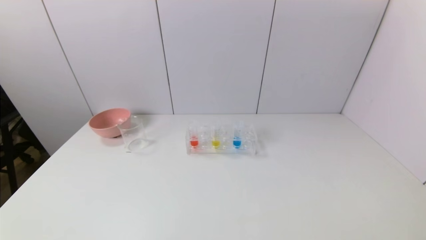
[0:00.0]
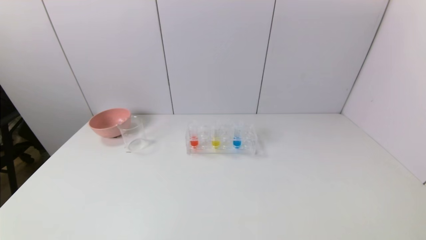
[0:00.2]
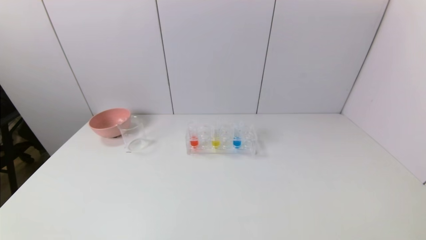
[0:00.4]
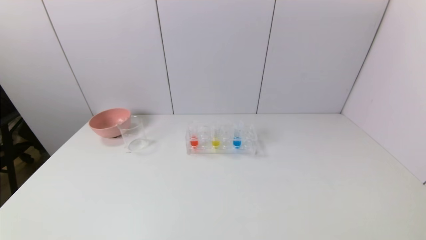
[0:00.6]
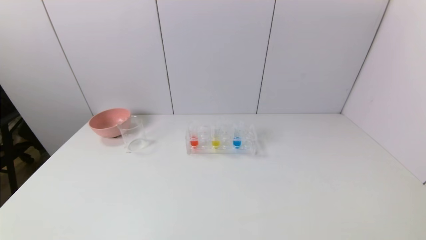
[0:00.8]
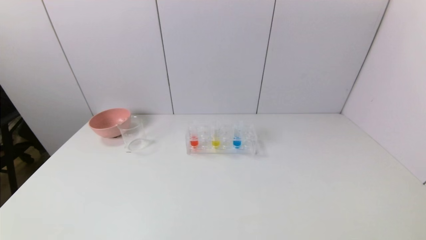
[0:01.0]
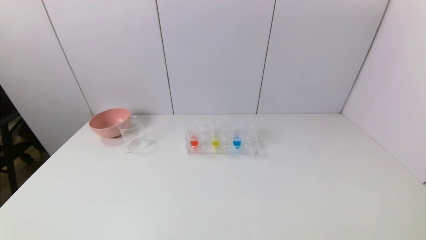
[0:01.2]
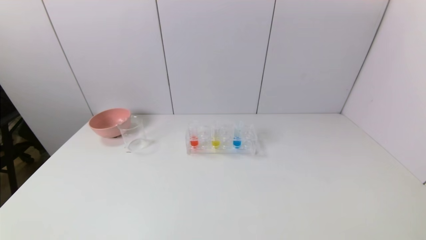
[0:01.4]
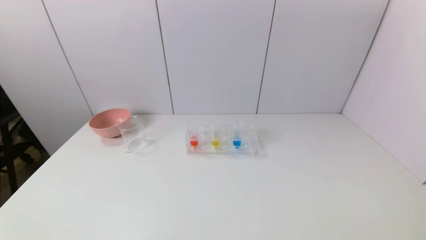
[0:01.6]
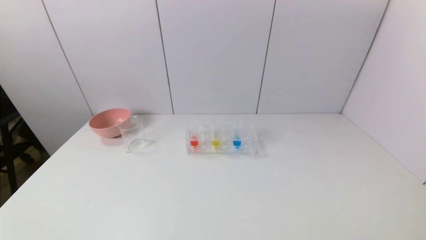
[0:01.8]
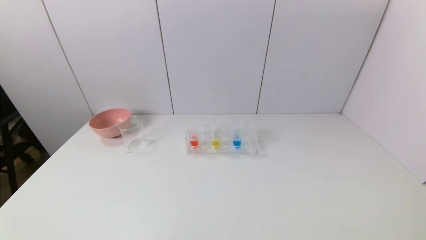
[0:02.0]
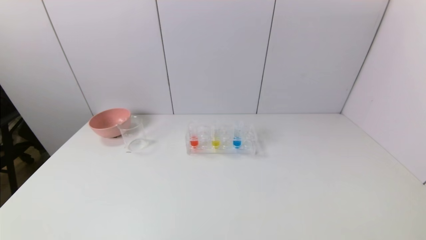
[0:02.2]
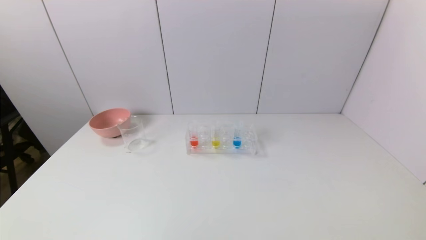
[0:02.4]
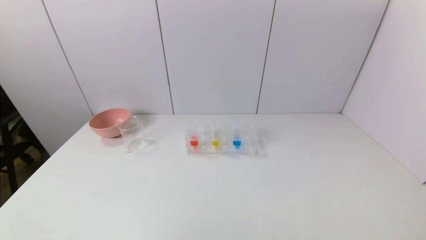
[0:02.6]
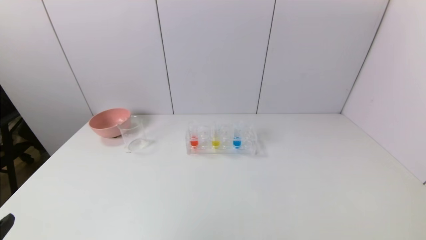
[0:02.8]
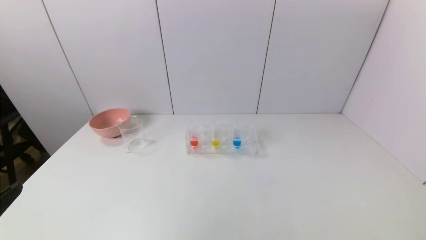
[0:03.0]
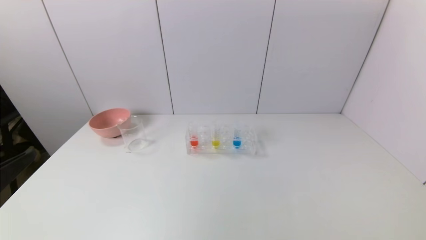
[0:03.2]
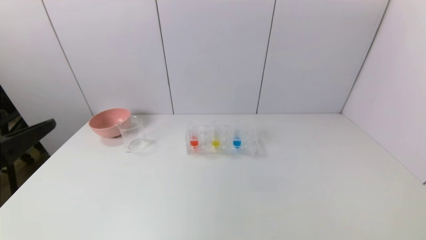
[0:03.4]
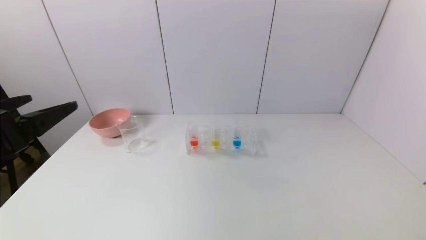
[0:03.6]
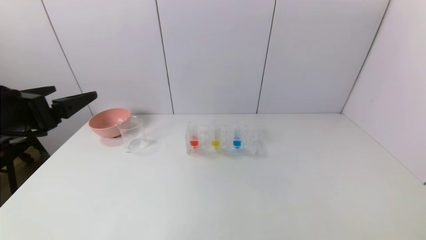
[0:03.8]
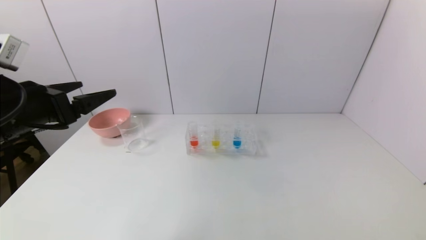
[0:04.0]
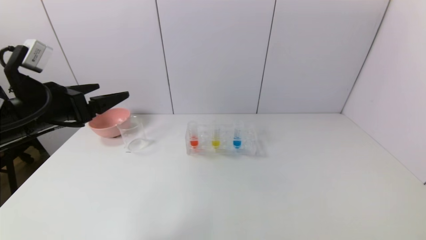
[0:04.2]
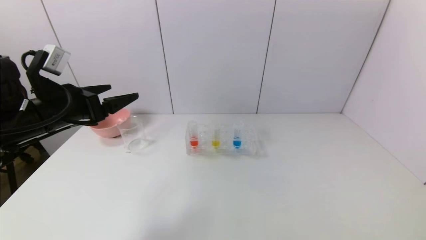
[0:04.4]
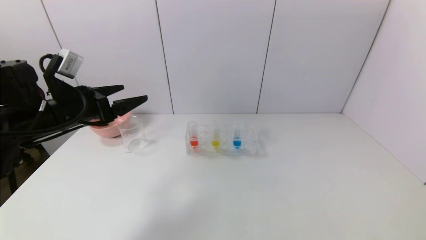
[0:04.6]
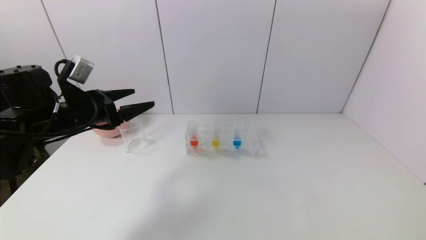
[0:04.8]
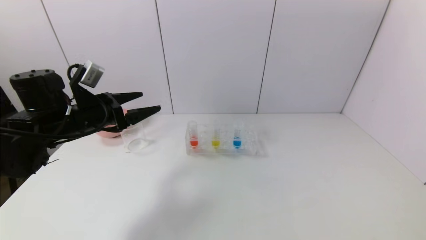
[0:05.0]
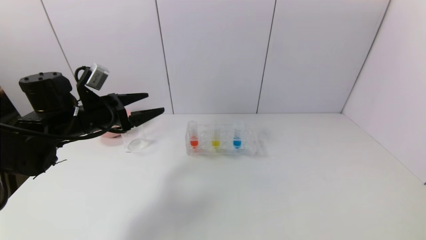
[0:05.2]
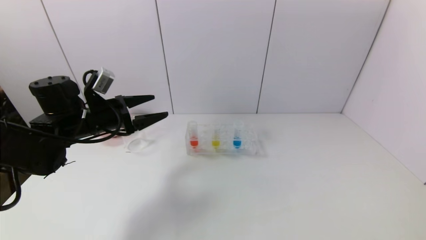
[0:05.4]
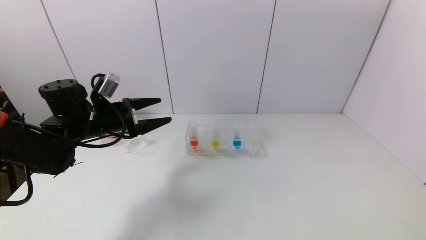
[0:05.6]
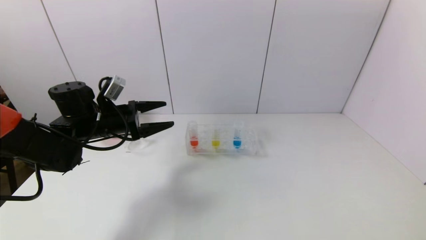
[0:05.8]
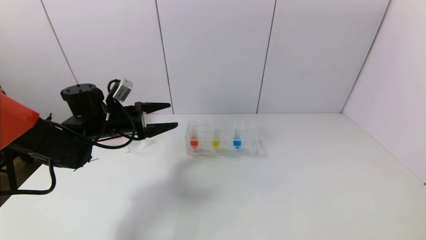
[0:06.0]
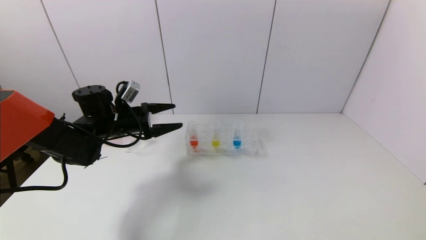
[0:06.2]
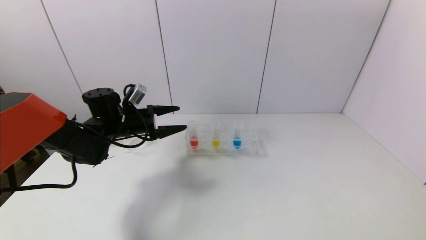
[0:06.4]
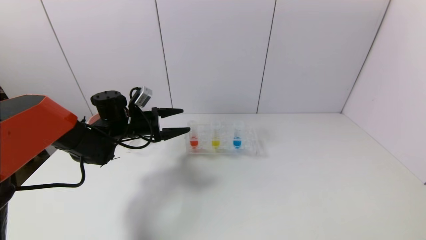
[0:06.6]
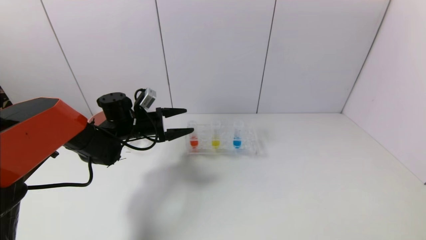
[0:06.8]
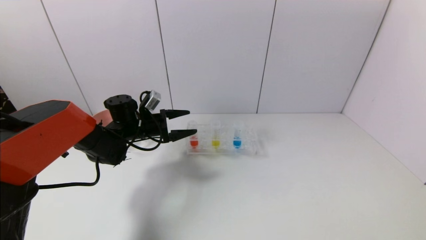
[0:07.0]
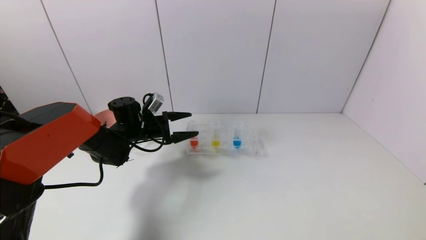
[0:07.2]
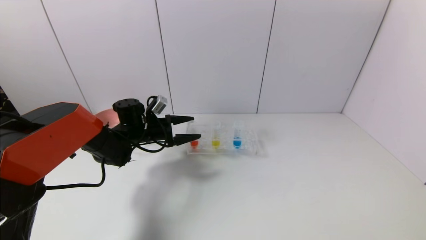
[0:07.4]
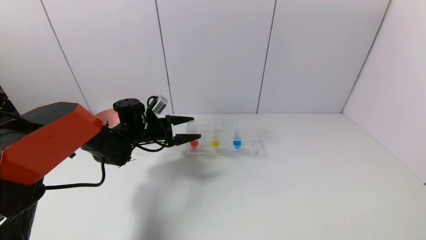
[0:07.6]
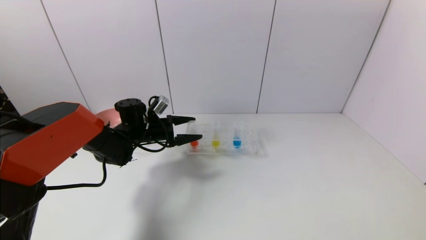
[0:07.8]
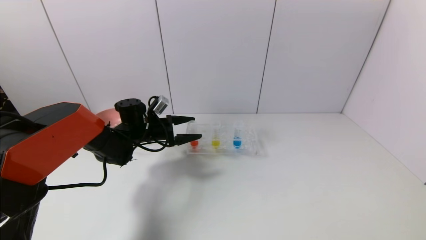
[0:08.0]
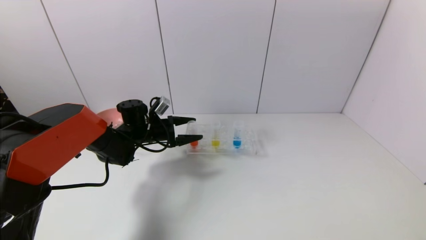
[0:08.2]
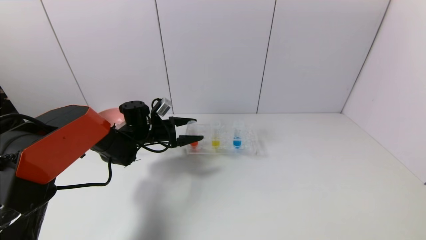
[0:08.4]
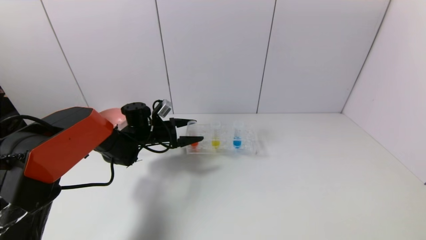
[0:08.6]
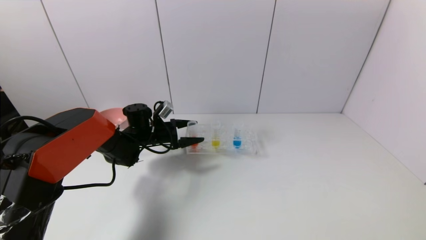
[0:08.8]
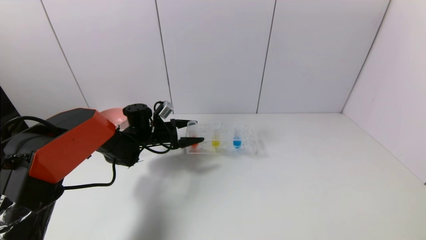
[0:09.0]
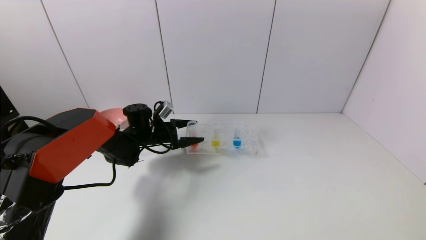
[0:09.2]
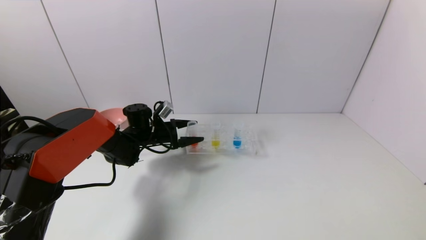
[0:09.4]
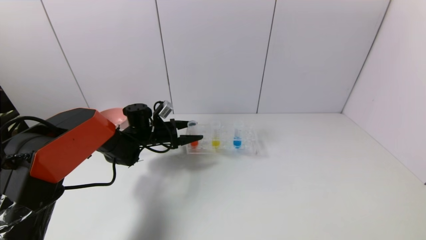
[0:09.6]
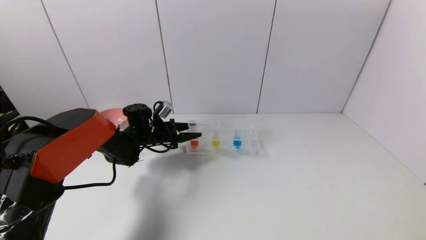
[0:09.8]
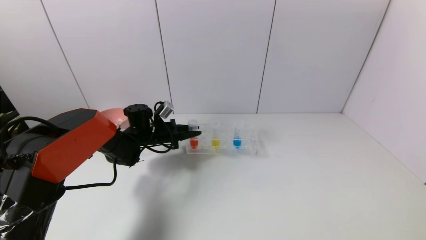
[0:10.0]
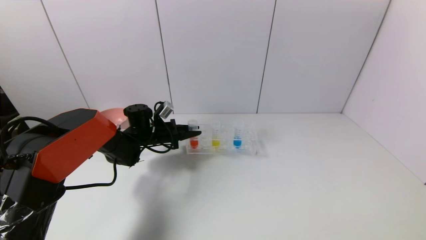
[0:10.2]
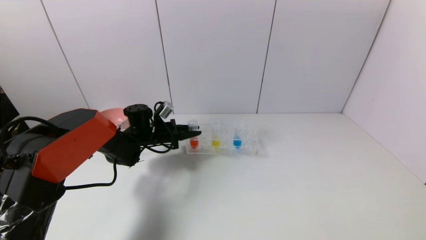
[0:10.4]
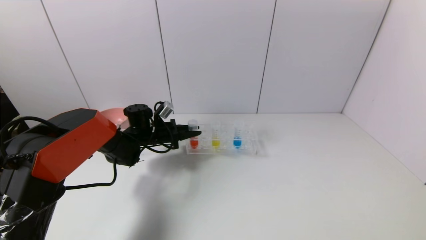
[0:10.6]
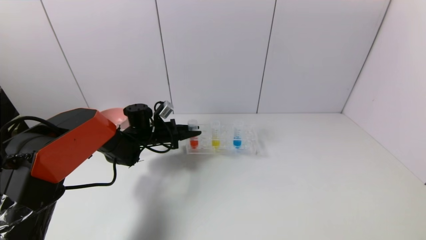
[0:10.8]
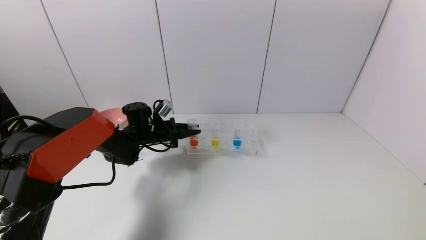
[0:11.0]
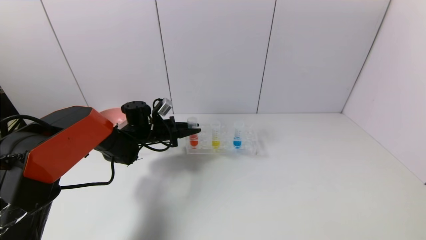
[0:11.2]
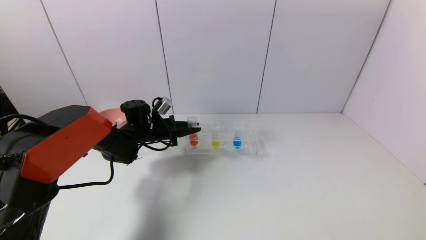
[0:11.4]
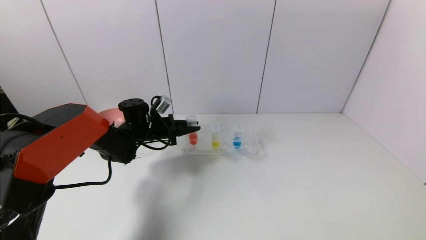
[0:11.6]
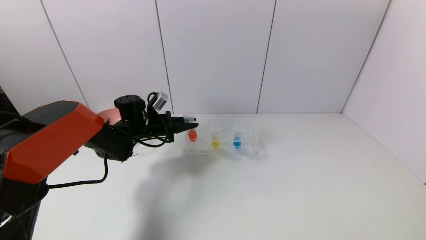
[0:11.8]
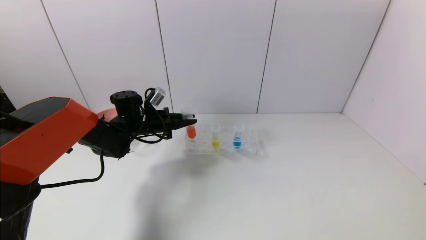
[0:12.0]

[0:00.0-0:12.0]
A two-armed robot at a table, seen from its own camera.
Task of the whole recording: pick up the test tube with red pigment and the test tube with blue pigment by grippers and pour them into the container.
Step, 0:00.0 to 0:10.4: Grasp the red reagent with the left gripper.
0:00.0 to 0:01.6: Both grippers stay put.
0:03.0 to 0:04.4: The left gripper travels forward by roughly 25 cm.
0:04.4 to 0:06.0: The left gripper shifts some 15 cm forward and downward.
0:06.0 to 0:07.6: The left gripper shifts some 10 cm downward, forward and to the right.
0:07.6 to 0:09.0: The grippers make only small movements.
0:09.0 to 0:10.4: The left gripper closes.
0:10.4 to 0:12.0: The left gripper shifts roughly 5 cm upward.

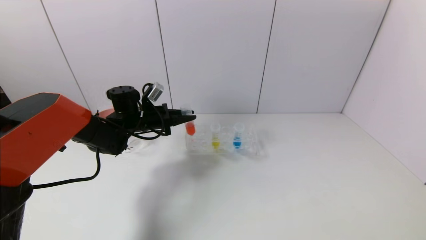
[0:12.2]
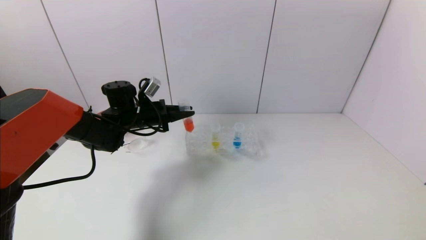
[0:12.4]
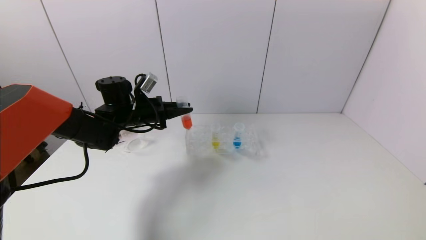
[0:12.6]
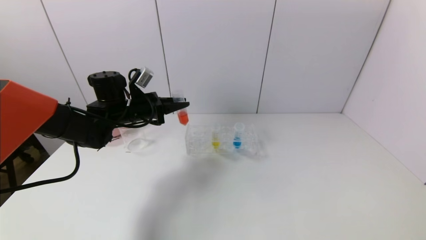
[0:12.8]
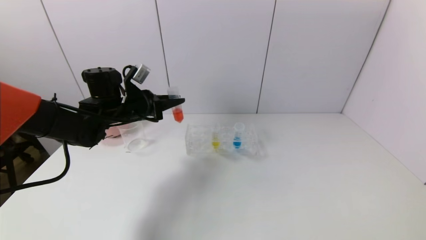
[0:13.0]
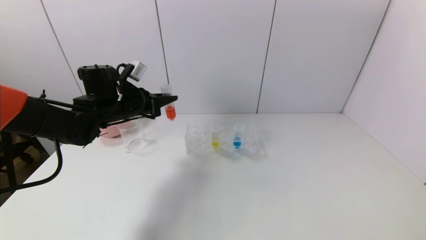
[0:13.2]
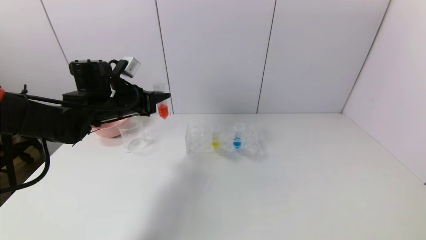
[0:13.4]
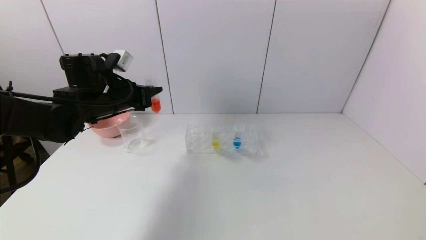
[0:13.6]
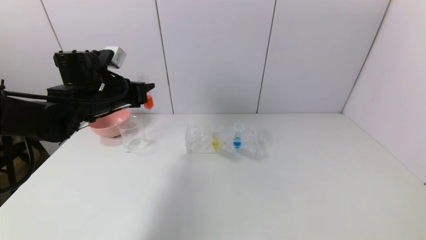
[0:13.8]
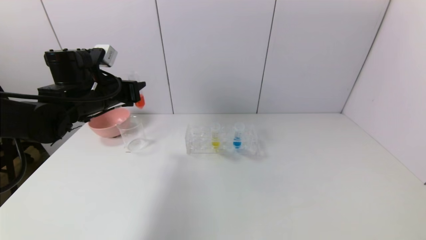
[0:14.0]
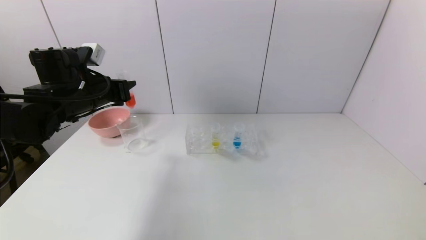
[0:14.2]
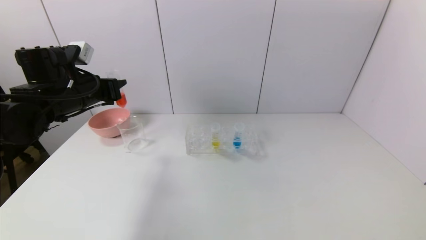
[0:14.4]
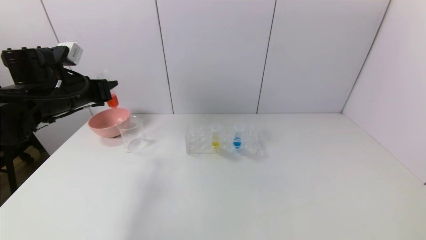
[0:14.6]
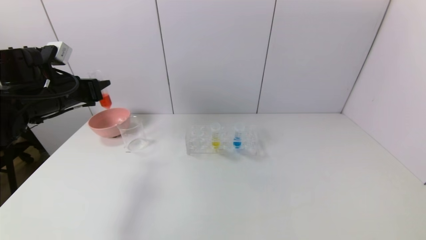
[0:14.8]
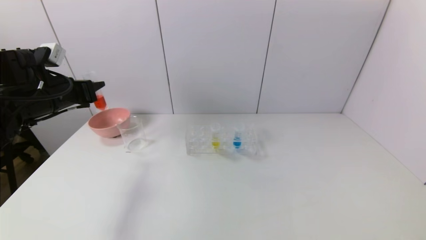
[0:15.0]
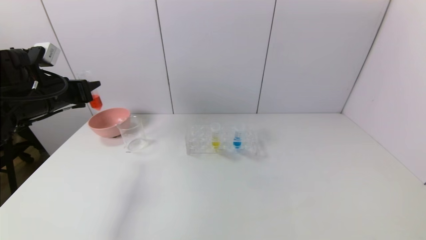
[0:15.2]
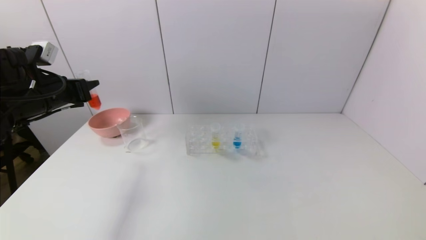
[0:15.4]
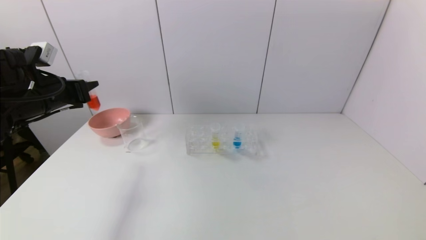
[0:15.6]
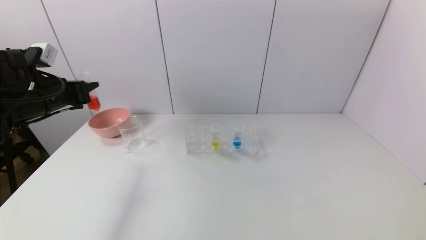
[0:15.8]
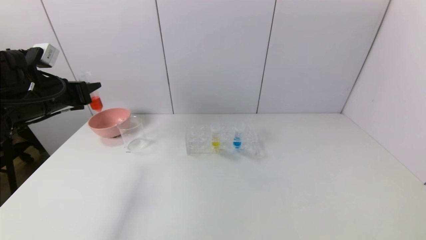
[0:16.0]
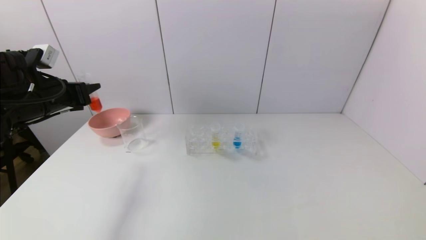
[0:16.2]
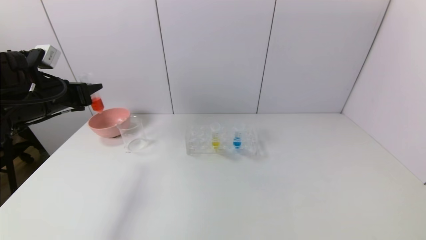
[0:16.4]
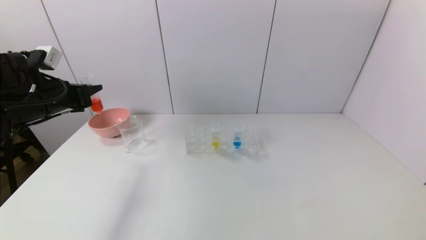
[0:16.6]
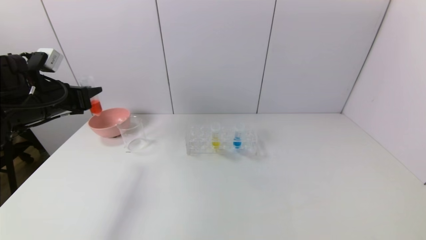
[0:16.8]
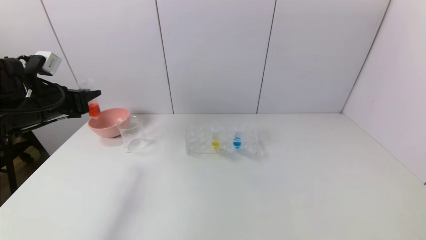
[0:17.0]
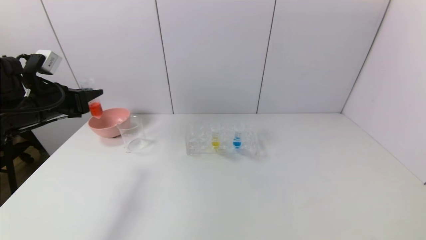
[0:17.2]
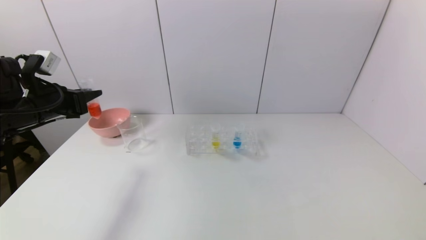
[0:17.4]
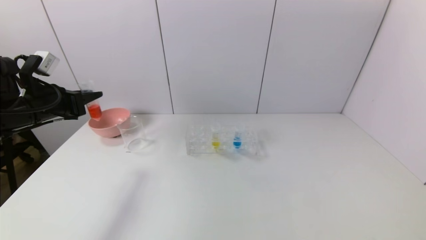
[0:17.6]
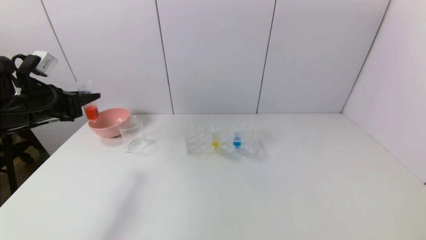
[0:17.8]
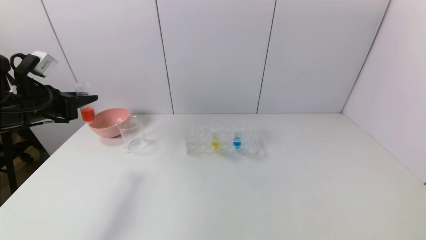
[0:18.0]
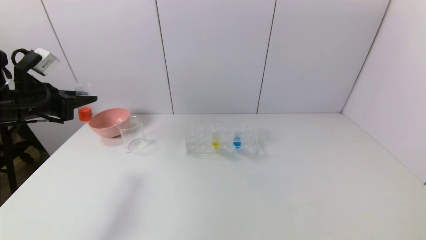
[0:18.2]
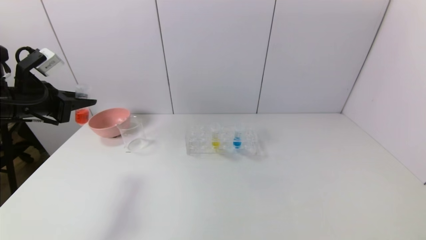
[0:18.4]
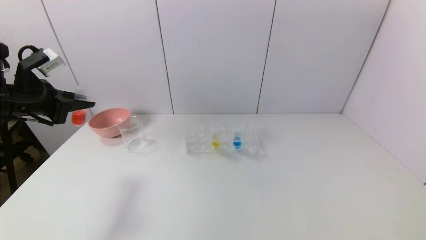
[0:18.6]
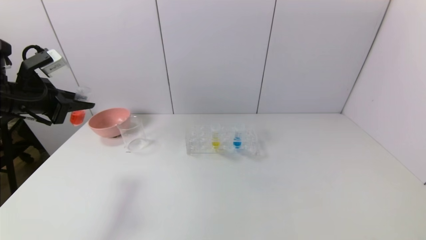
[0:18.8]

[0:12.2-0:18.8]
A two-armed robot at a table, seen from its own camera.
Task of the whole recording: pick up the test tube with red pigment and the test tube with blue pigment by grippers and pour them into the container.
0:12.2 to 0:13.8: The left gripper shifts approximately 10 cm upward and backward.
0:13.8 to 0:15.4: The left gripper travels to the left by approximately 10 cm.
0:15.4 to 0:17.2: The grippers stay close to where they were, moving slightly.
